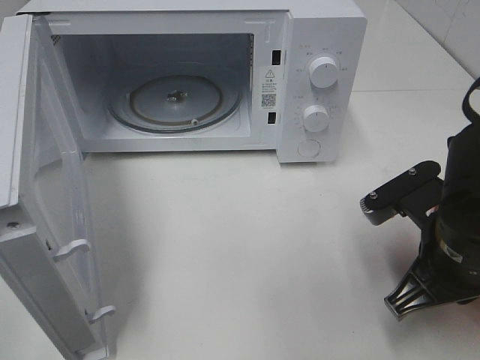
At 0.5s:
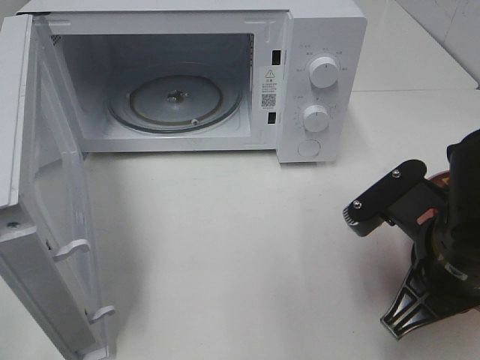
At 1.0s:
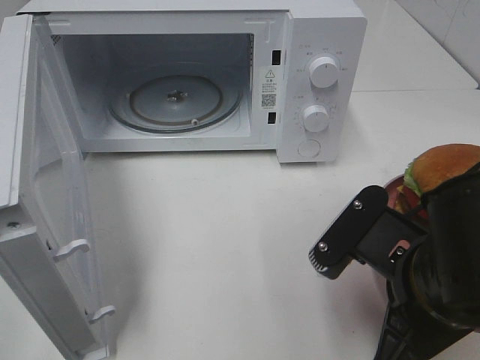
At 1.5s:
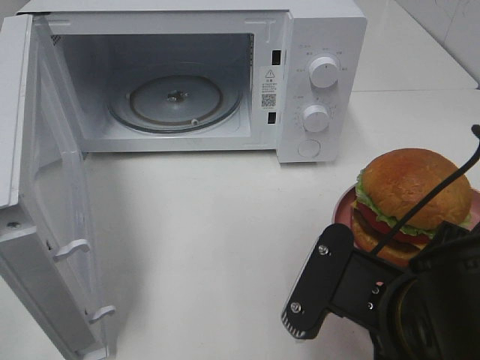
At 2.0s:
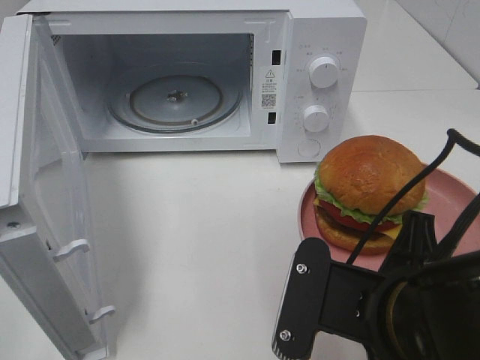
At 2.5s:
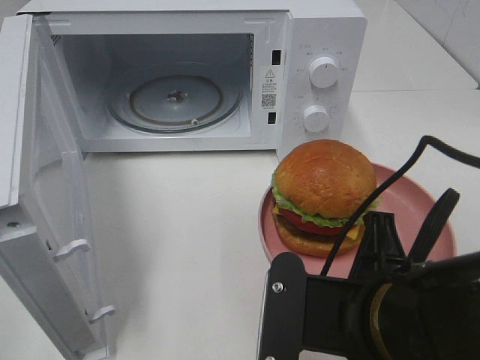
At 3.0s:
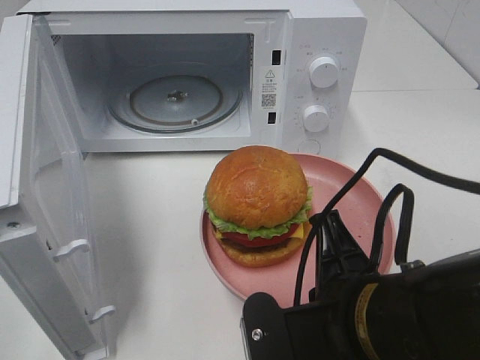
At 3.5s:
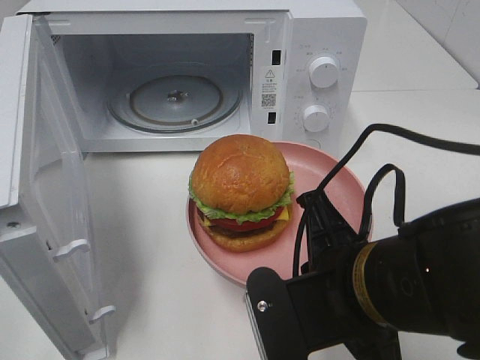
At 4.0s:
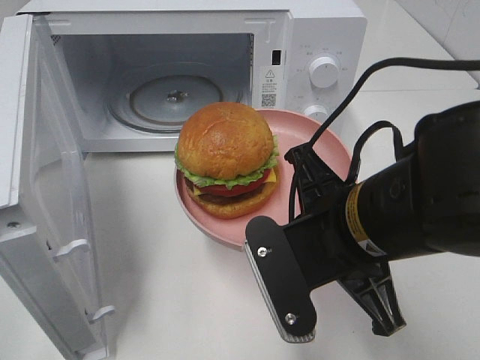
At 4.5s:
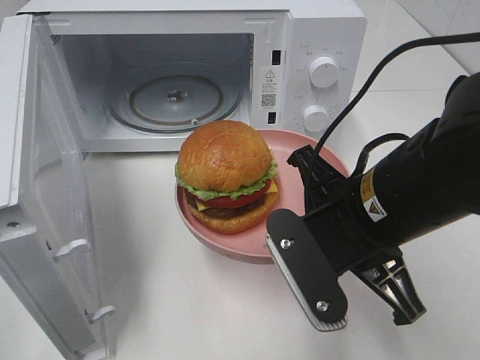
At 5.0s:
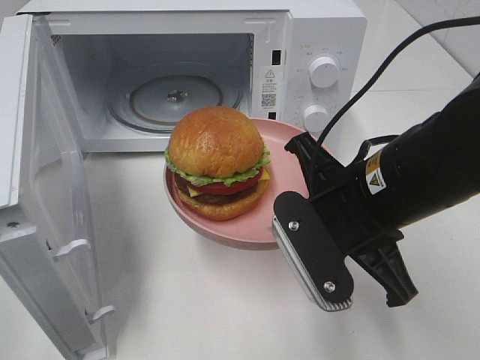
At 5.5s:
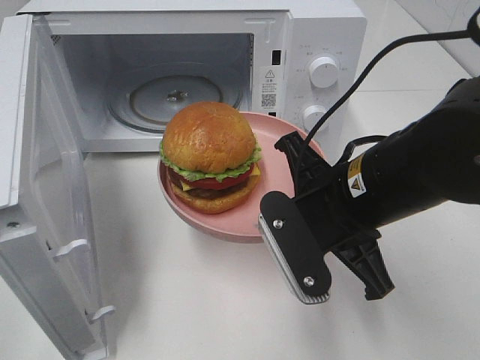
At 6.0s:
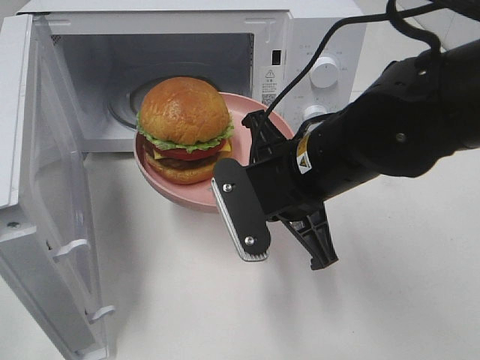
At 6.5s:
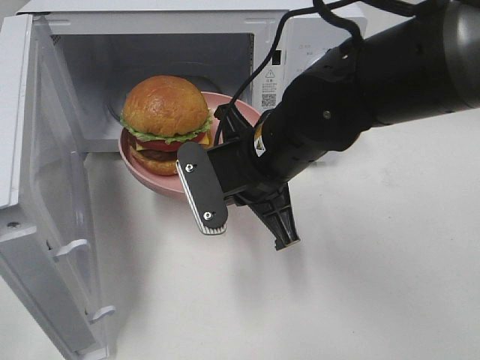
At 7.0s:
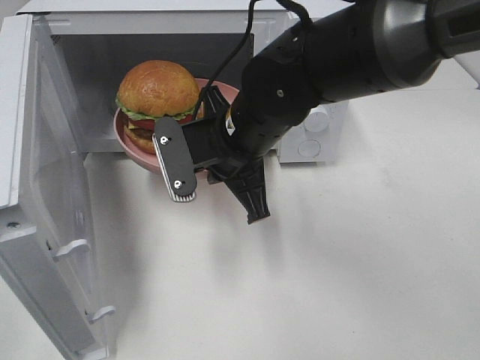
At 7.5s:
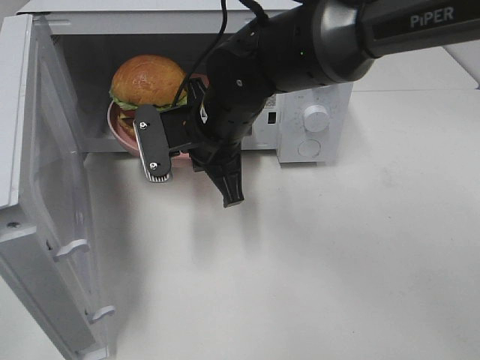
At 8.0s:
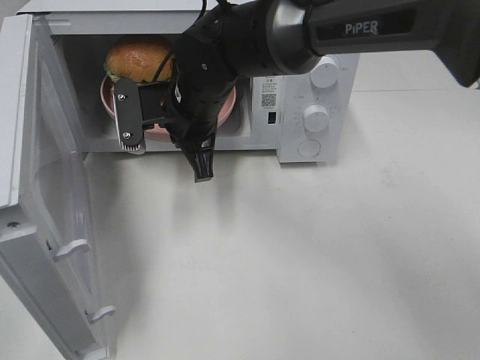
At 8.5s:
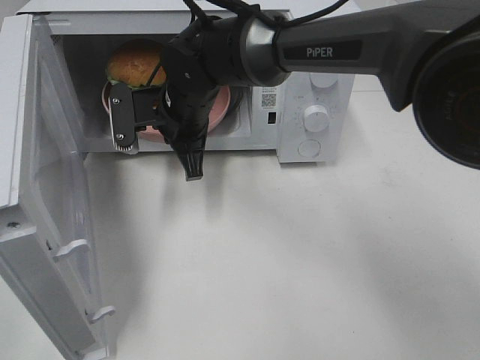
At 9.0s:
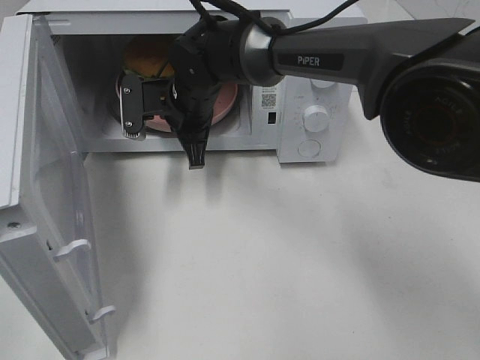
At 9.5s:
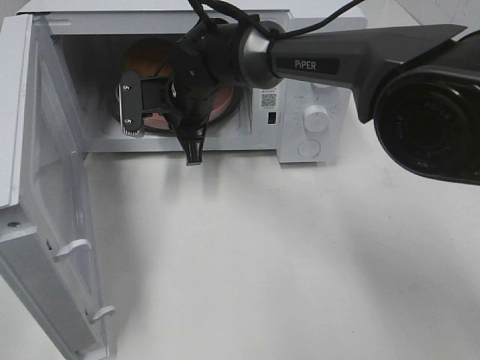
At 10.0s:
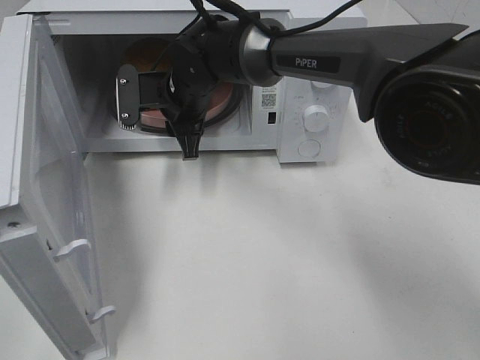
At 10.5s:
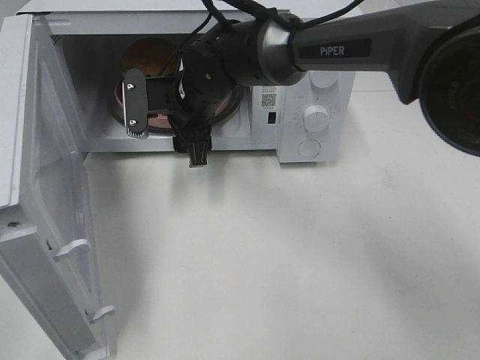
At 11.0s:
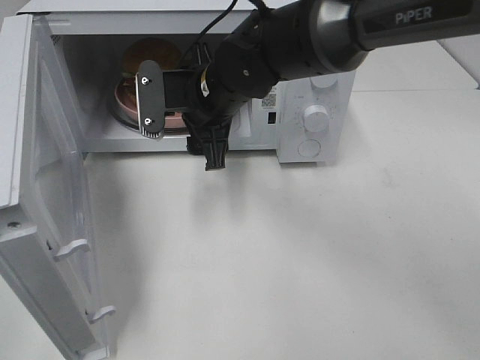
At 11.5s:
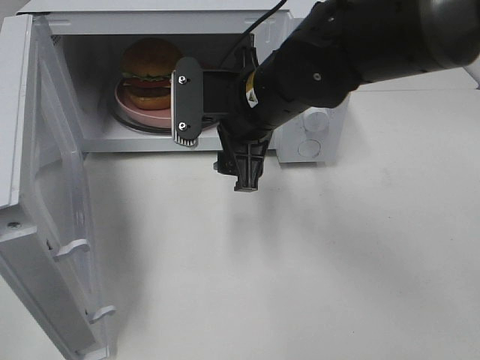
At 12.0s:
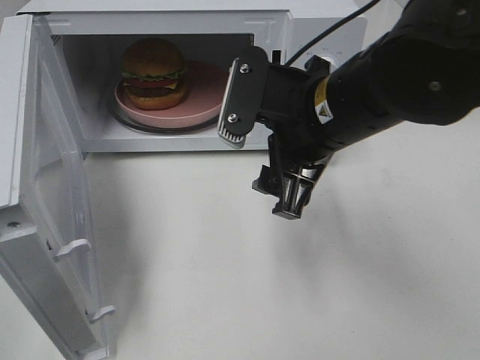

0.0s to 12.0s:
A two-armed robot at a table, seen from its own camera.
Task of the whole recording: Heat the burger.
Step, 0.0s to 9.5s: Right hand: place the plate in the microwave.
0.0s to 2.0s: The right gripper heads backward and to the left, covering about 10 cm.
2.0s to 4.0s: The right gripper travels forward by roughly 5 cm.
4.0s to 6.0s: The right gripper is displaced forward by about 5 cm.
6.0s to 8.0s: The right gripper shifts approximately 15 cm forward and to the left.
8.0s to 10.0s: The right gripper goes approximately 5 cm forward, and opens.
10.0s to 12.0s: The right gripper heads backward, to the right and upward, covering about 25 cm.

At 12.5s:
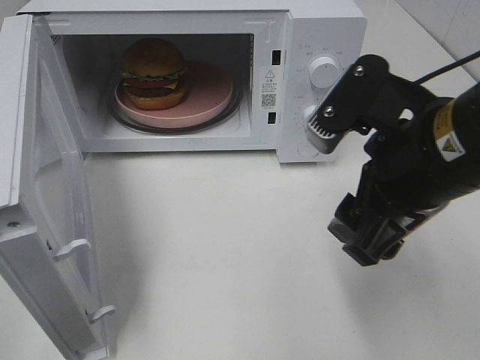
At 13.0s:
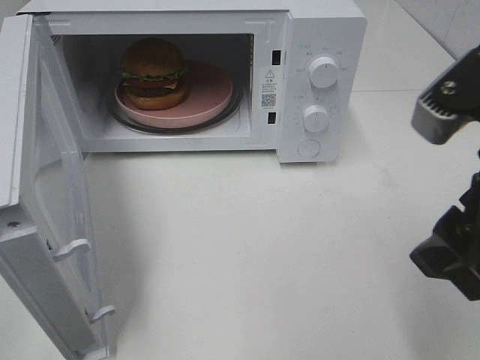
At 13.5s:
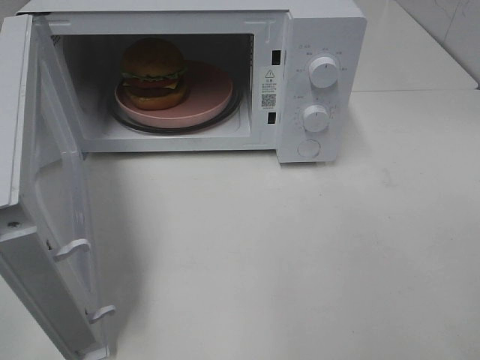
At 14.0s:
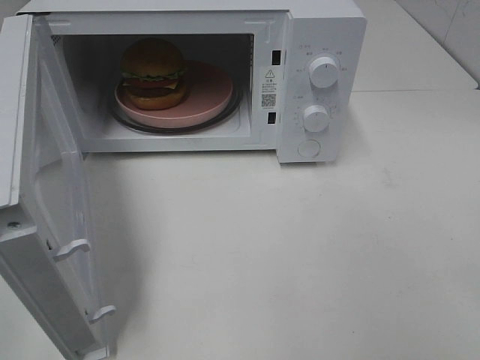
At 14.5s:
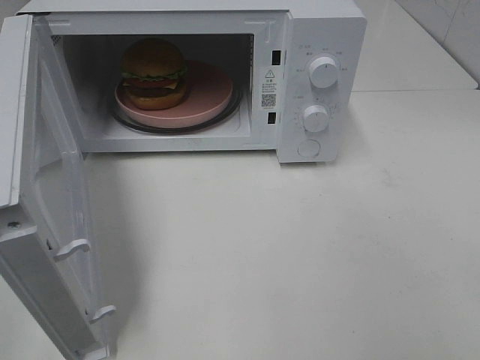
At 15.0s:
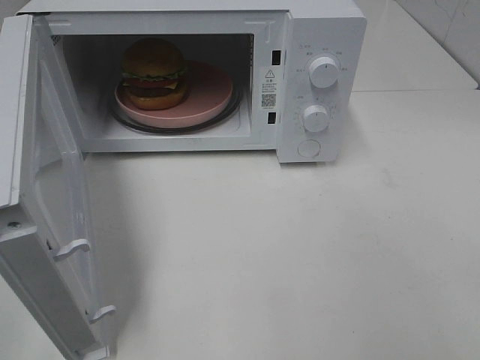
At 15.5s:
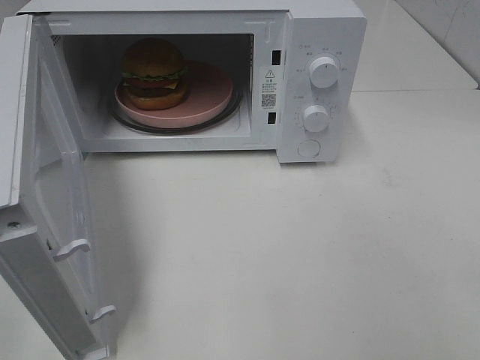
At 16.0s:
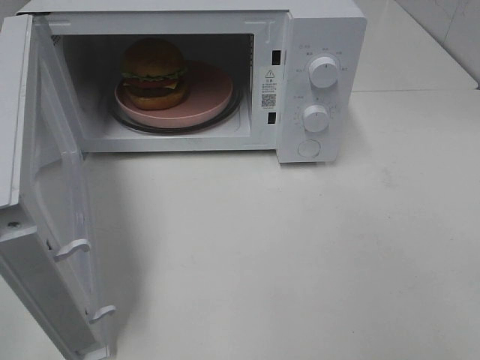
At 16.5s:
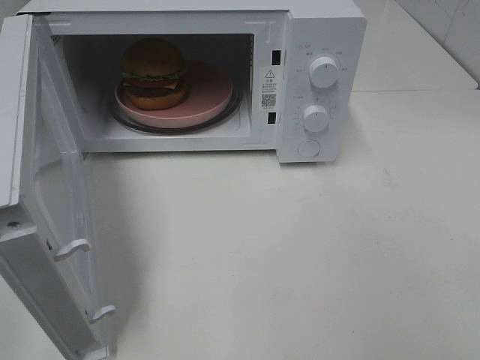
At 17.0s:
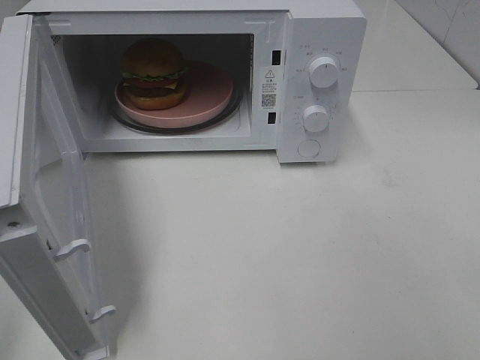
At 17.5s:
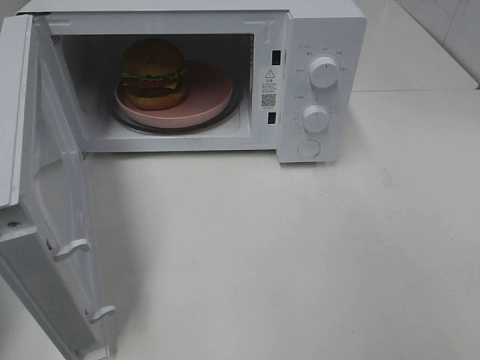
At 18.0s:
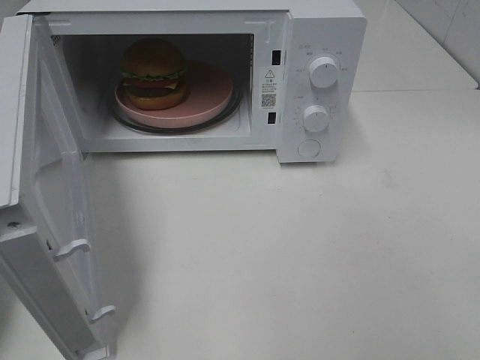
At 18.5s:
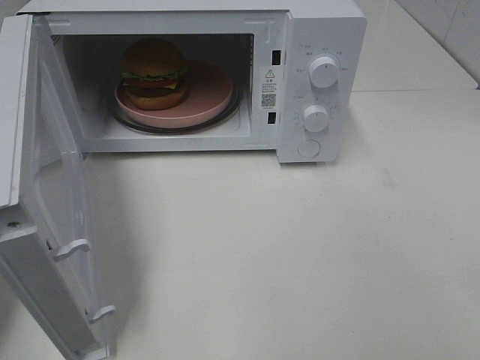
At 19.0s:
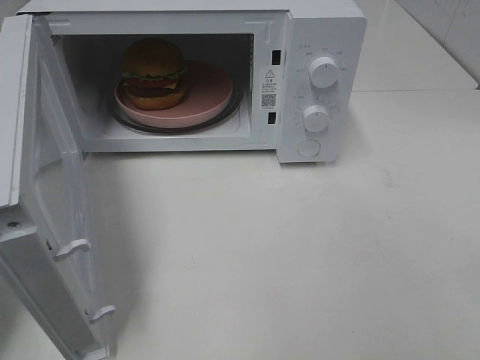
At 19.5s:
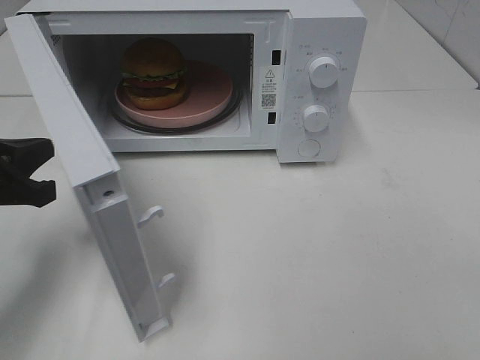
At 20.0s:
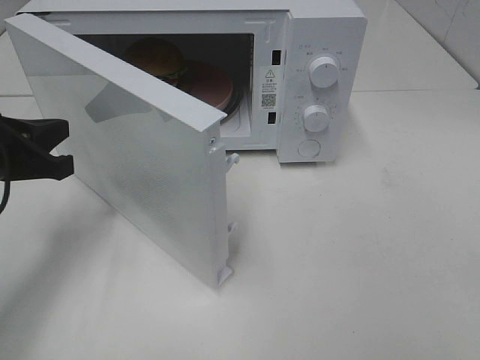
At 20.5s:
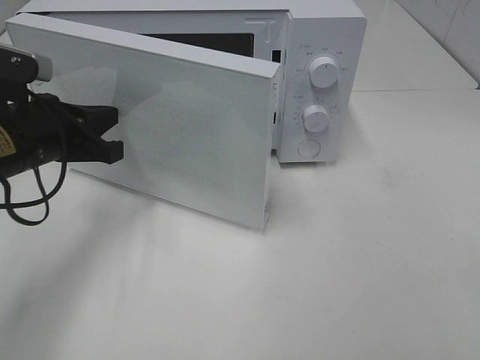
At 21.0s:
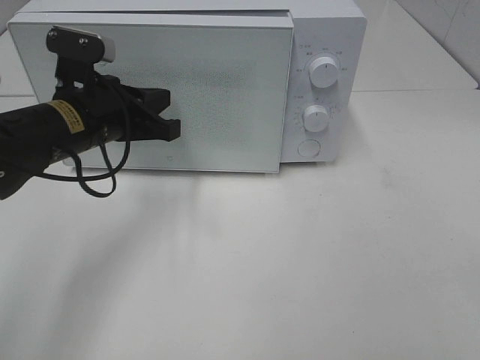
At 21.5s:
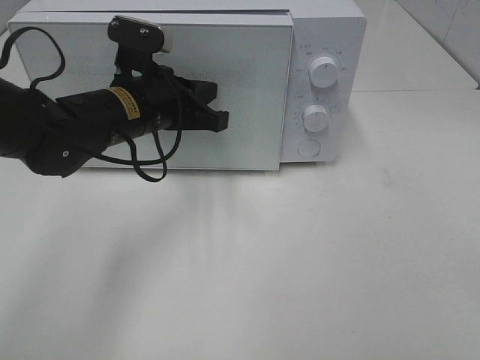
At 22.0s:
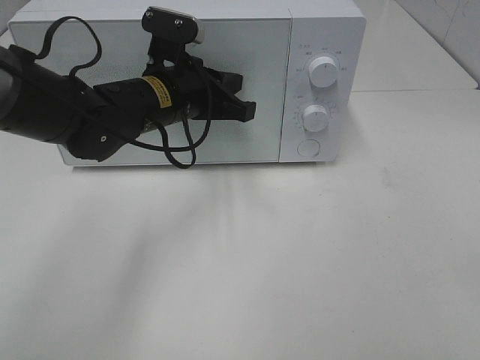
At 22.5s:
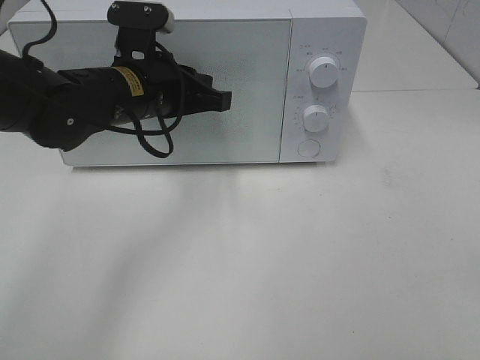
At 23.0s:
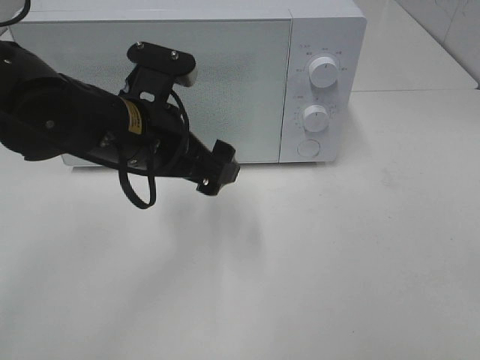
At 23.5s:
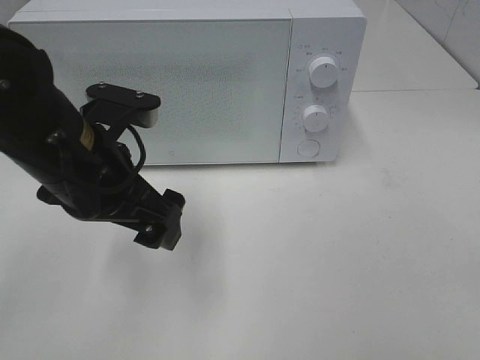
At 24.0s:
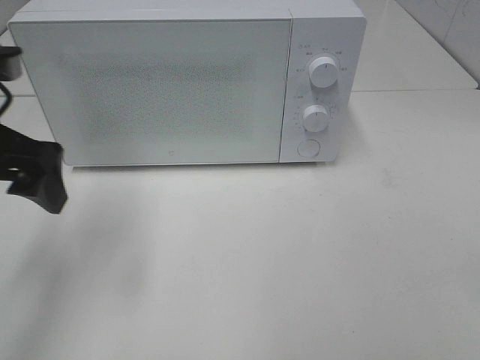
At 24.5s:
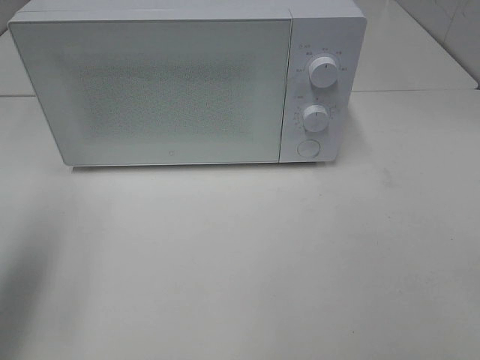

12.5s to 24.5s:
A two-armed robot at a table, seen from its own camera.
Task of the whole recording: Heat the burger.
Step, 12.5s to 22.5s: Left hand: close the microwave door.
12.5s to 14.5s: The right gripper heads backward and to the right, covering roughly 25 cm.
14.5s to 16.5s: Neither gripper changes place.
18.5s to 20.5s: The left gripper moves to the right and forward, some 15 cm.
20.5s to 22.5s: The left gripper moves to the right and forward, about 10 cm.
22.5s to 24.5s: The left gripper goes about 30 cm to the left, backward and upward, and opens its fingers.

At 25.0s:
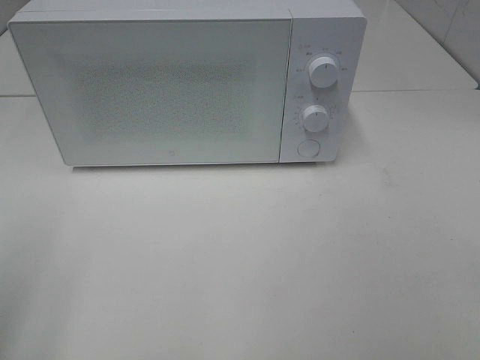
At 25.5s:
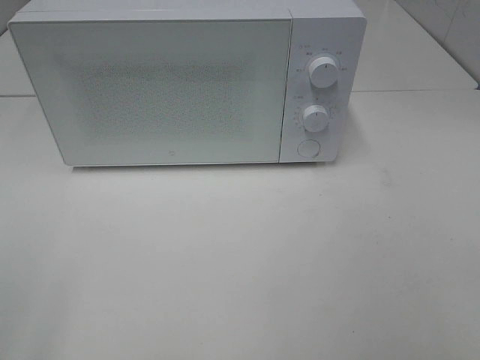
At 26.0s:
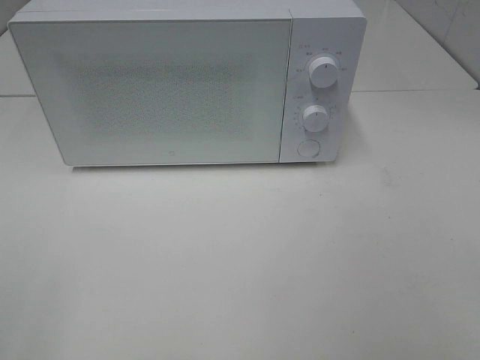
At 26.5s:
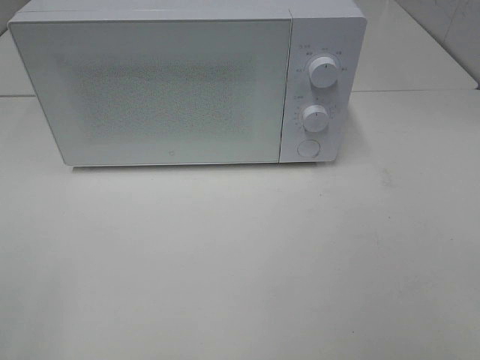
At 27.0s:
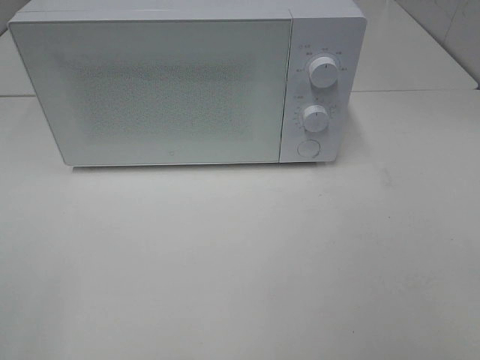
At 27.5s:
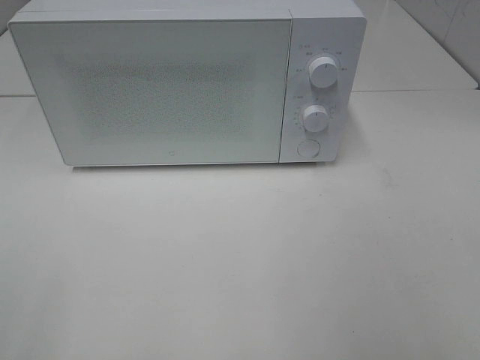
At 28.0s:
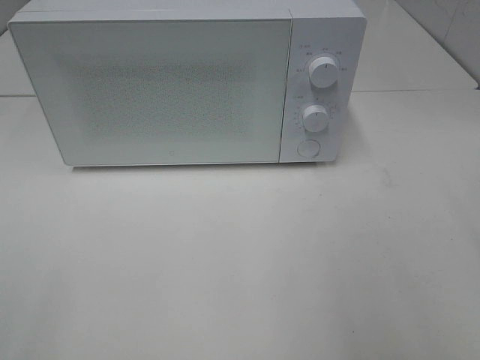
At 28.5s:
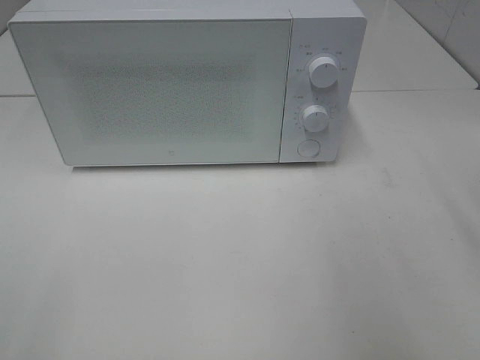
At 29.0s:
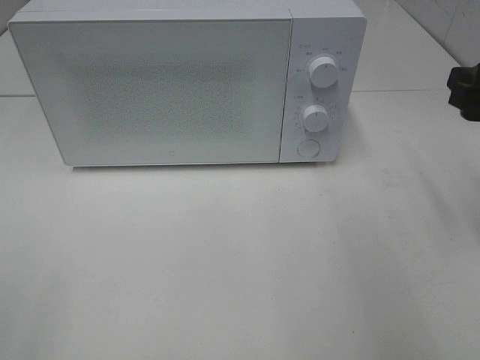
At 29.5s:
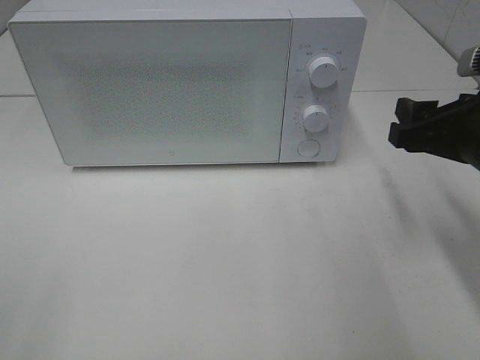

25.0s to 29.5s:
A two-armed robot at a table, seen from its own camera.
Task of the whole recording: Heat the burger.
27.0s to 29.5s: The right gripper is displaced forward by some 25 cm.
